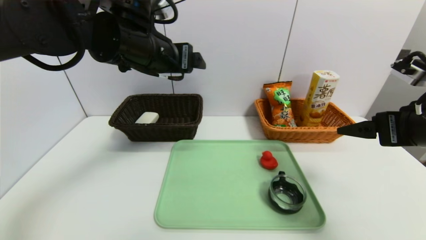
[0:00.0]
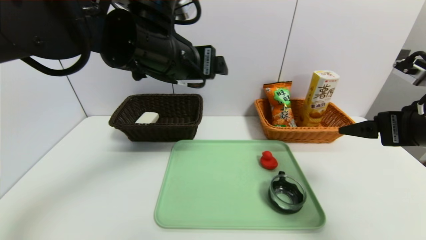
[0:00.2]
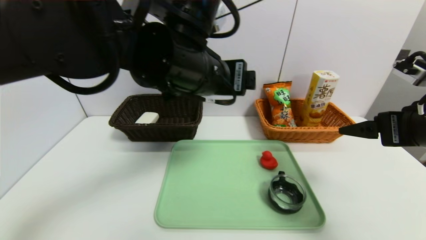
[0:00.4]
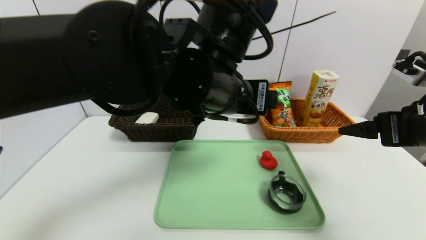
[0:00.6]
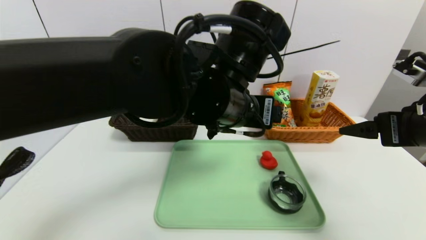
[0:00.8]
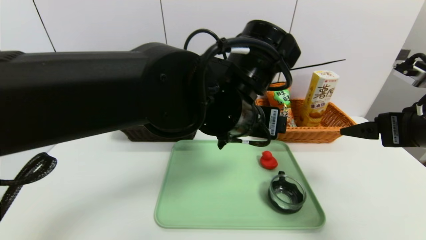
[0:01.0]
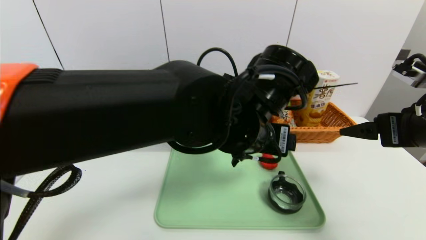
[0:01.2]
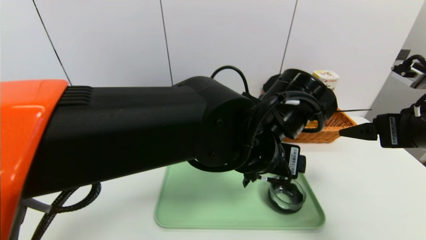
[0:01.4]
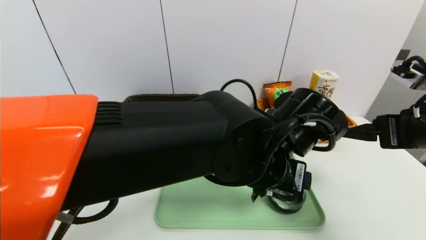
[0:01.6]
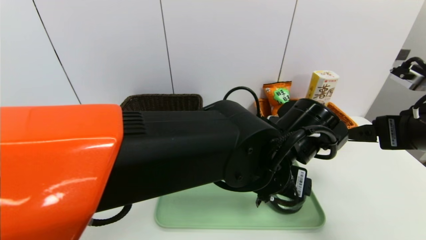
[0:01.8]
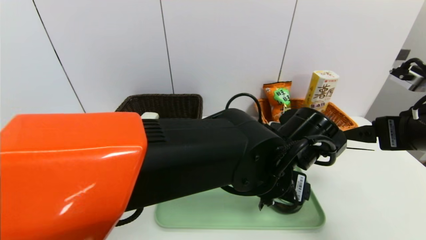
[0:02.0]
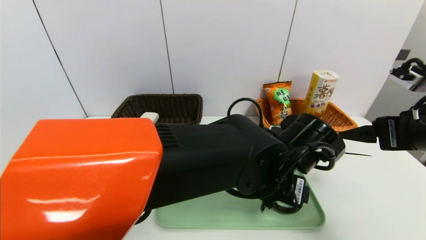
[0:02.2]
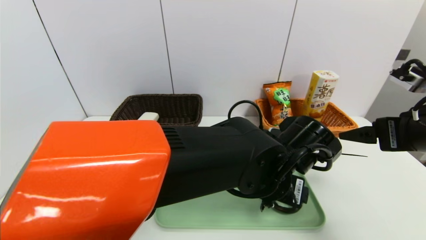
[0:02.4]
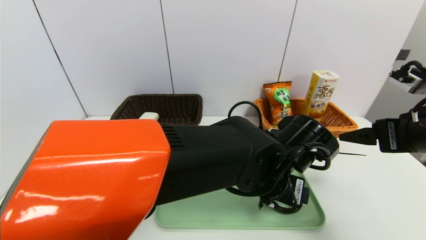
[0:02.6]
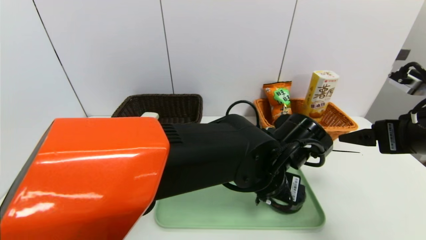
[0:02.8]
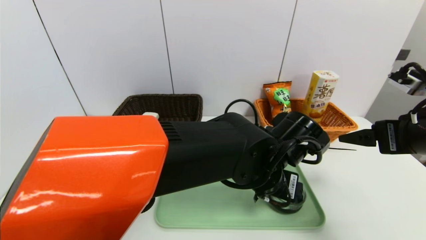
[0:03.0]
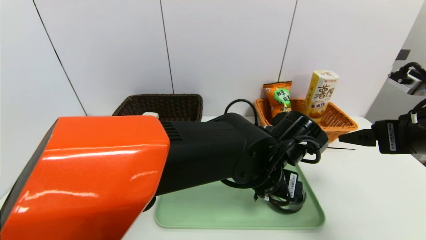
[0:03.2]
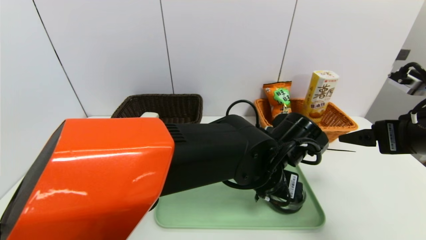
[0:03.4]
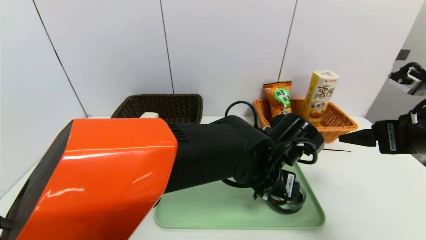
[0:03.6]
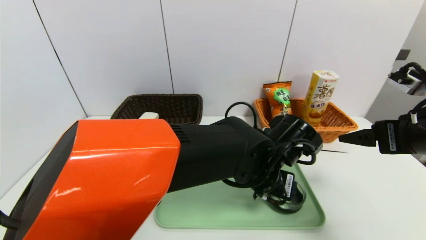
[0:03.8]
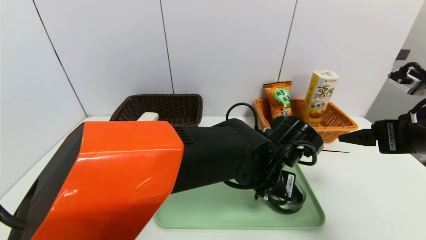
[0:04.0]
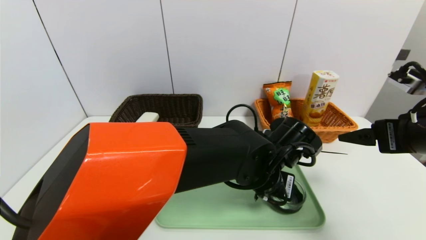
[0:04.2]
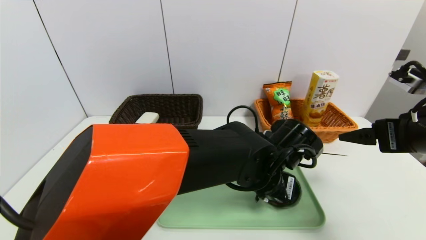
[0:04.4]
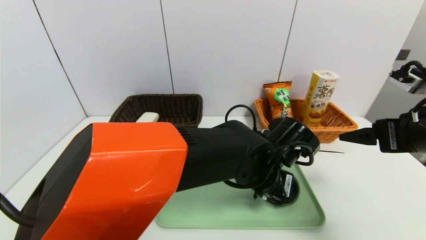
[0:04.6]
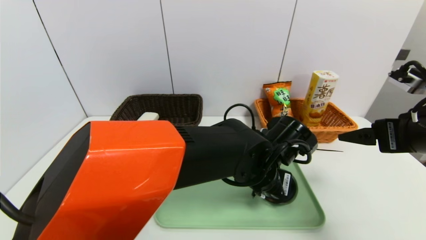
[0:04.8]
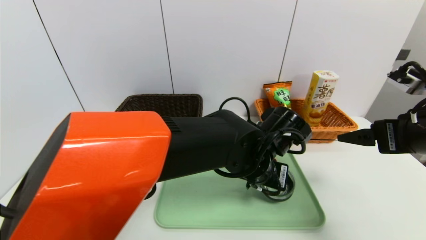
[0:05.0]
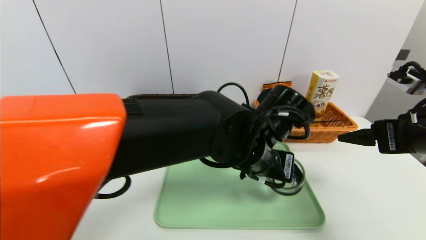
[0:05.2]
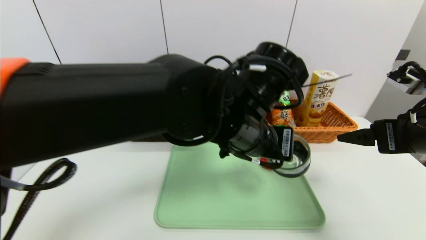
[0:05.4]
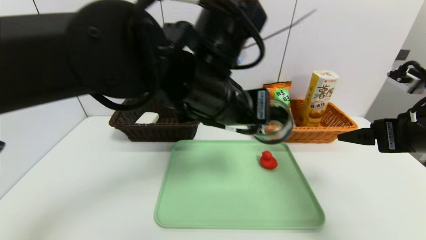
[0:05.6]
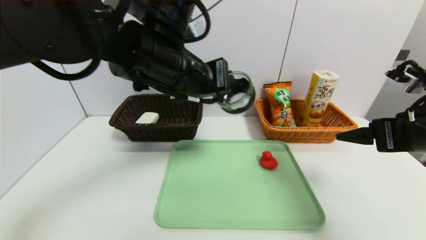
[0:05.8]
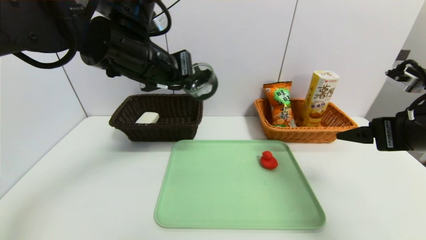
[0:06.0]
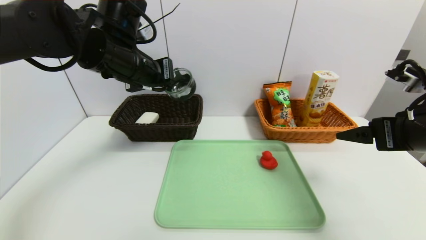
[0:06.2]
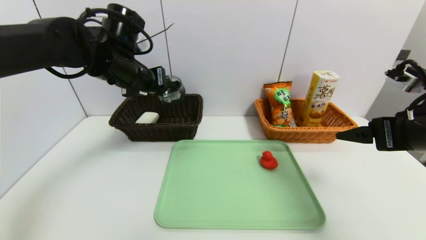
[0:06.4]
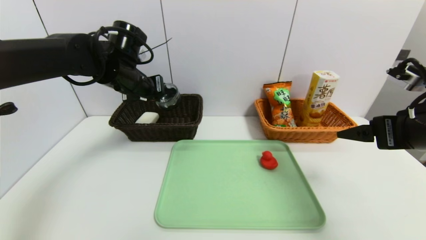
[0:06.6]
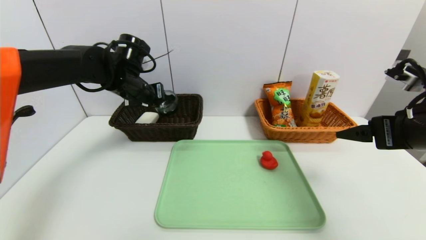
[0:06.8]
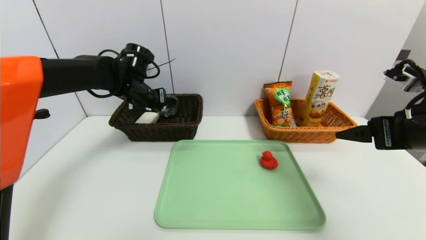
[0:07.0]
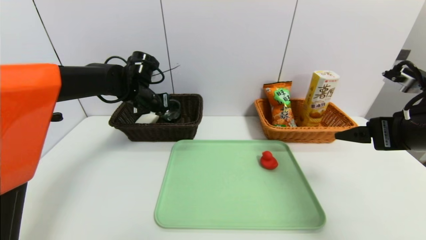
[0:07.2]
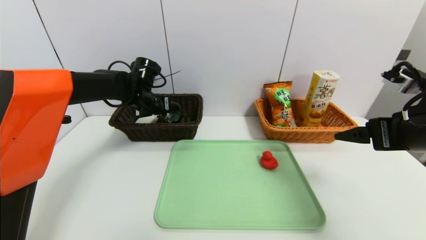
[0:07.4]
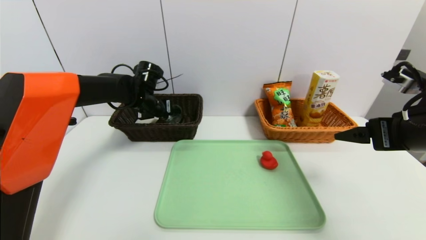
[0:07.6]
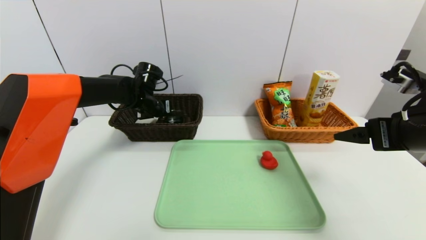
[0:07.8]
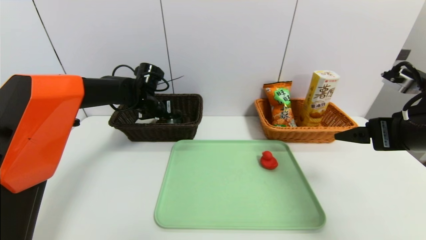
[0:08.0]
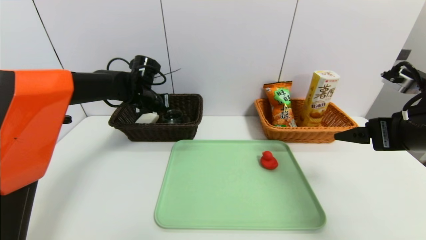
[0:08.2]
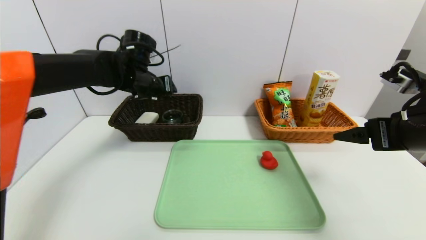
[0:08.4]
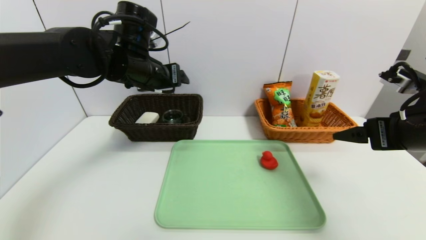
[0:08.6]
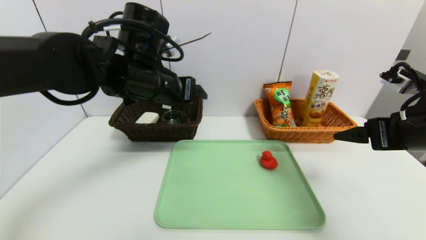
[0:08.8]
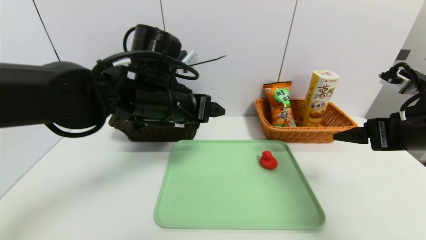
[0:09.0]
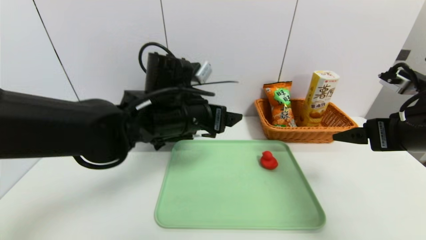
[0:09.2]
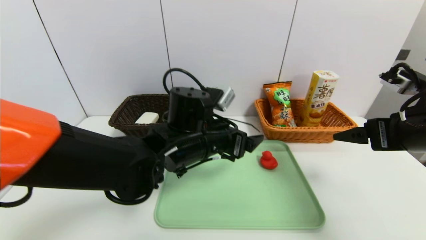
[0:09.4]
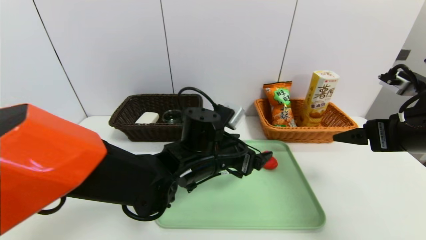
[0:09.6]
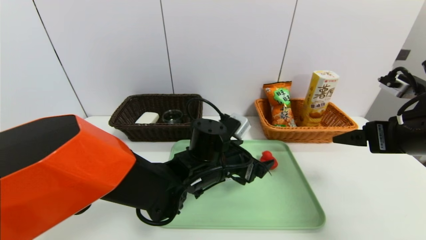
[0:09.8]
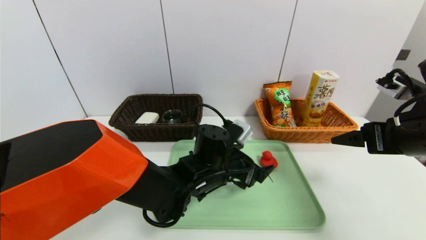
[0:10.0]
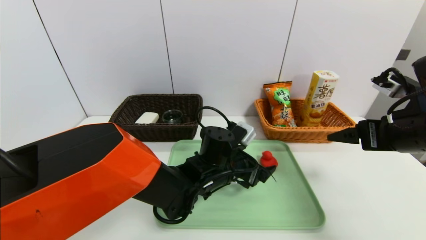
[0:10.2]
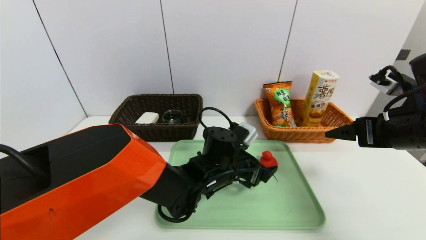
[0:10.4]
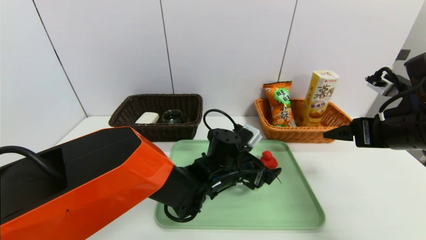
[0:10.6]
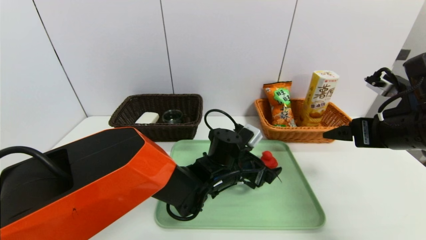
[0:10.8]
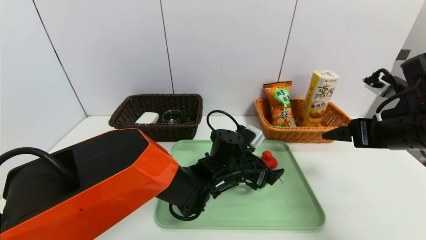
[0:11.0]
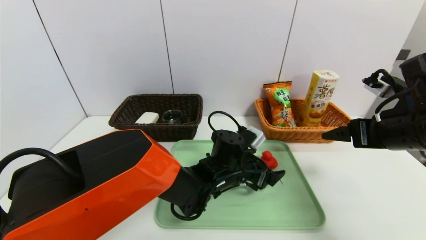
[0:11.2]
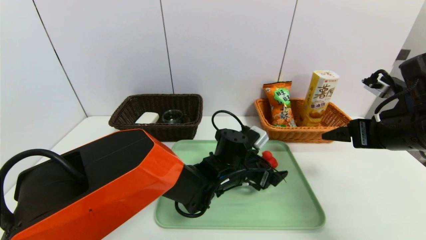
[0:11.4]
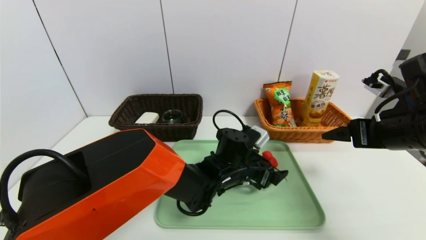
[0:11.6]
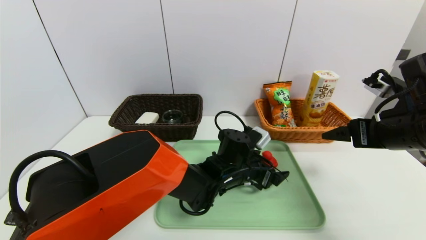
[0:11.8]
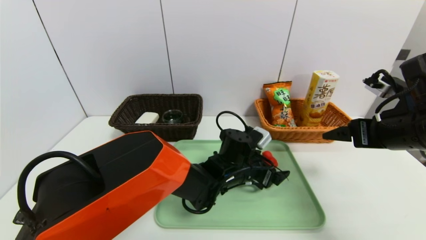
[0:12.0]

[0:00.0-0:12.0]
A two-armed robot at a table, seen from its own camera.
Task of the whole recording: place the food in the right basket with the right gripper, and place the non food items in the left basket with the left gripper.
Step, 0:00.0 to 0:08.2: Grasp the black glass cup and put it in the left basket.
0:00.0 to 0:01.6: The left gripper shifts about 25 cm to the right, downward and backward.
0:01.6 to 0:03.0: The left gripper moves approximately 5 cm.
0:03.0 to 0:04.4: The left gripper closes up.
0:04.4 to 0:06.0: The left gripper moves to the left and upward, about 25 cm.
0:06.0 to 0:07.6: The left gripper travels forward, downward and to the left by some 25 cm.
0:07.6 to 0:09.0: The left gripper travels backward, to the right and upward by about 20 cm, and opens up.
0:09.0 to 0:10.4: The left gripper heads downward and to the right, covering some 20 cm.
0:10.4 to 0:12.0: The grippers make only small movements.

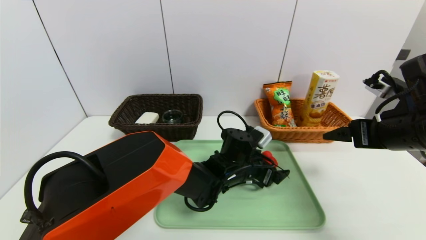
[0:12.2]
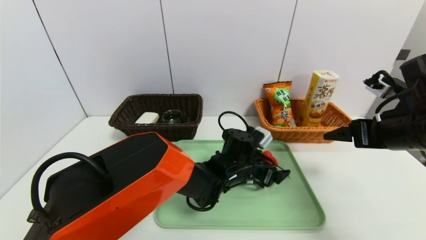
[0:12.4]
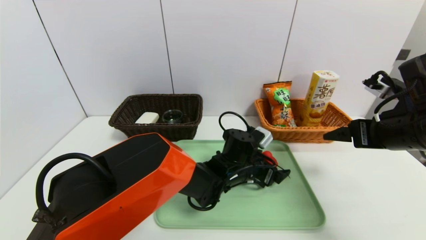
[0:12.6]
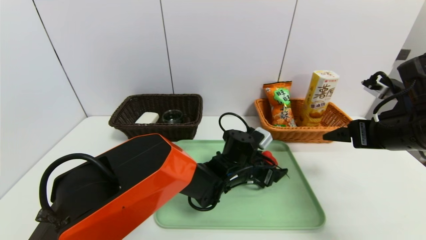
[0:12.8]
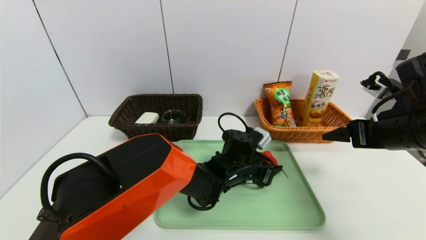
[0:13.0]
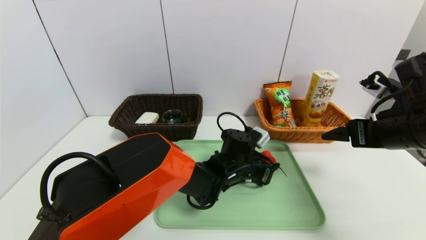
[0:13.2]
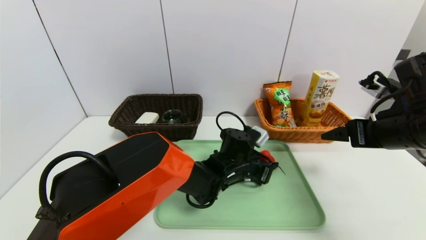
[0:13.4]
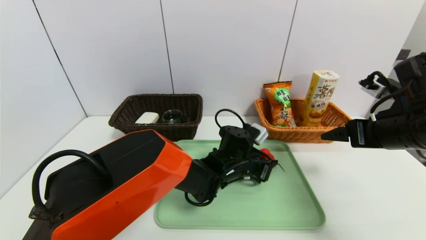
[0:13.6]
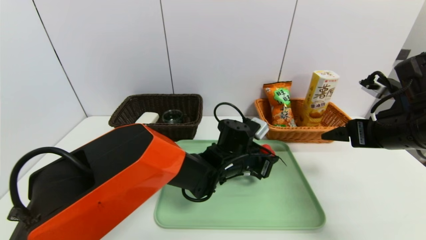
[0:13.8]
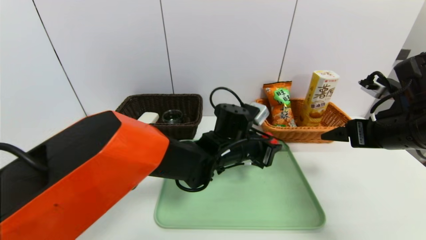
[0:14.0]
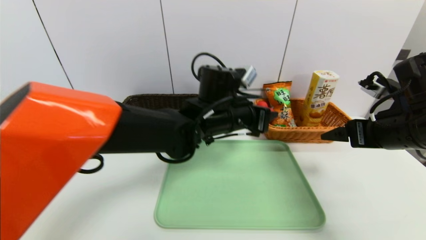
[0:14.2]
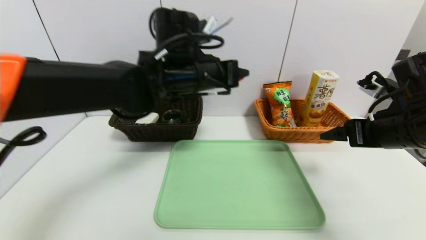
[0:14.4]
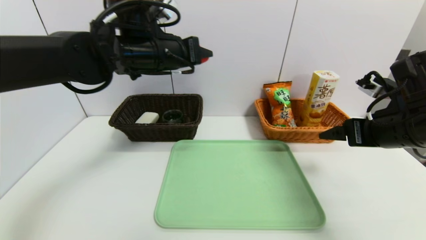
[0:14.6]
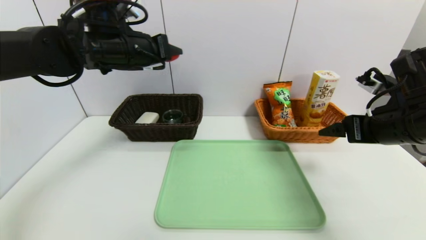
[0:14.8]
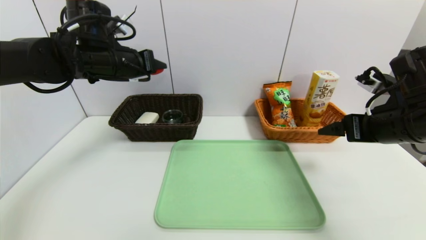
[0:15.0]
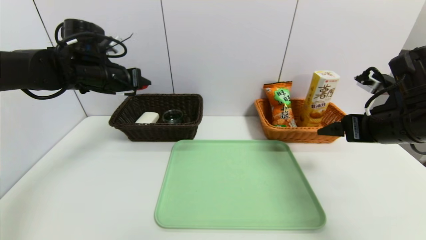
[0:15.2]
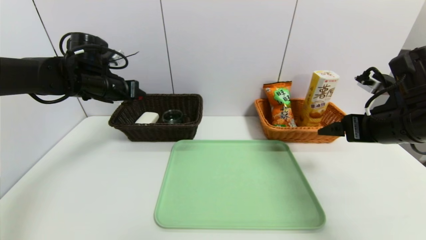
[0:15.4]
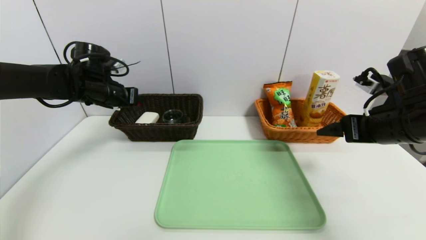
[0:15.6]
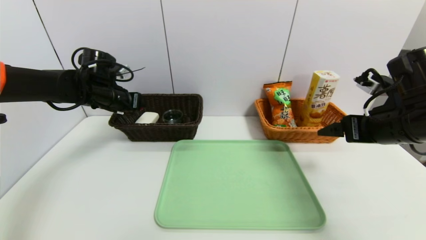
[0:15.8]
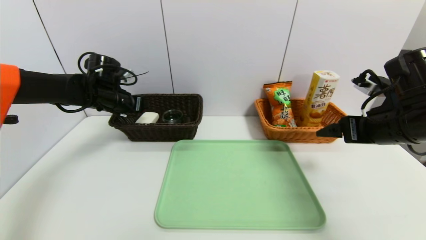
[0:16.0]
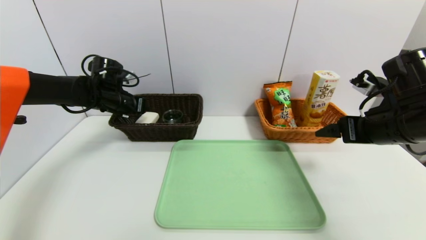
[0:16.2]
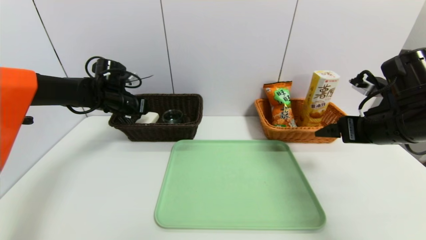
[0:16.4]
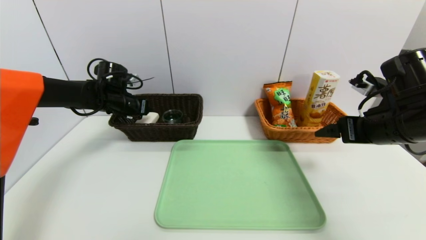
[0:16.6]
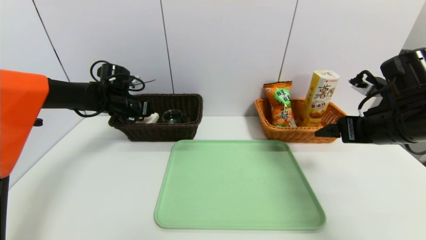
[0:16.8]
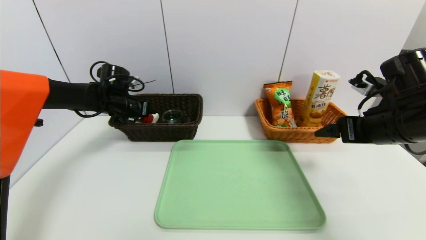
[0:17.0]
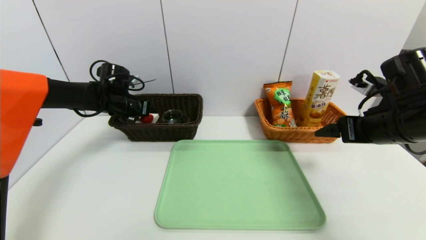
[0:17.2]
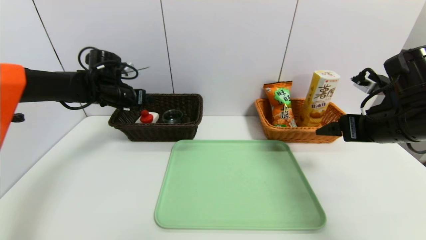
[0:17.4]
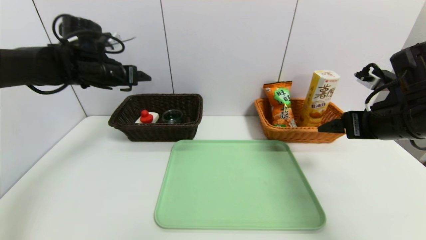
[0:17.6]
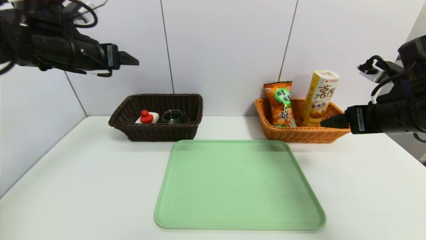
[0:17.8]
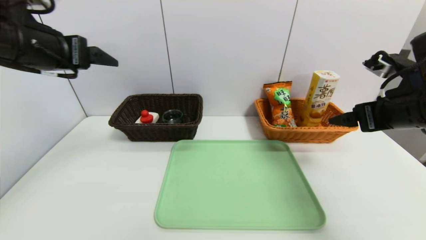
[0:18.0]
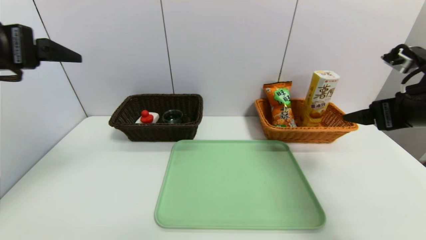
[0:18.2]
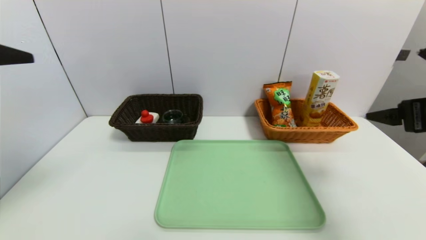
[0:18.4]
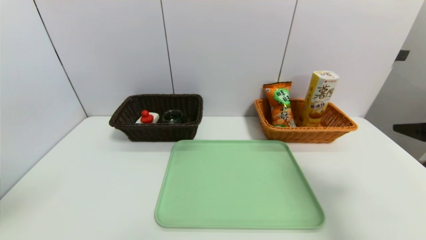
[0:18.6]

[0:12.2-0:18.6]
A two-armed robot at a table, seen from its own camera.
Task of the whole recording: place the food in the right basket with the right gripper, and place the non food items in the left basket with the left gripper.
Step, 0:12.2 to 0:17.4: Grasp the red duck and put it in the left basket.
0:12.2 to 0:13.8: The left gripper closes up.
0:13.8 to 0:15.4: The left gripper travels to the left and upward by about 35 cm.
0:15.4 to 0:17.0: The left gripper heads downward and forward, covering about 10 cm.
0:17.0 to 0:18.6: The left gripper shifts approximately 40 cm backward and upward. The right gripper heads backward and to the right, covering about 10 cm.
